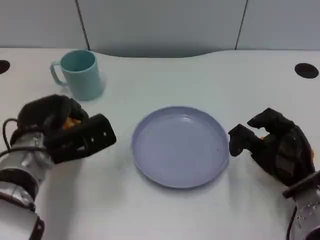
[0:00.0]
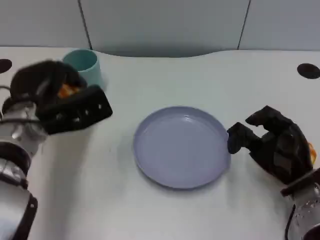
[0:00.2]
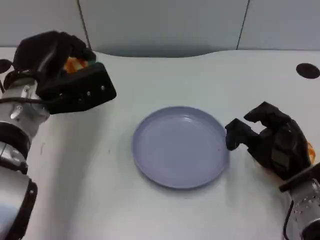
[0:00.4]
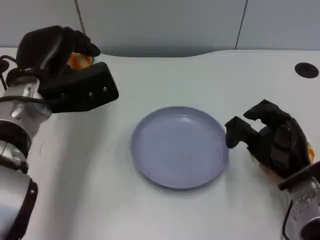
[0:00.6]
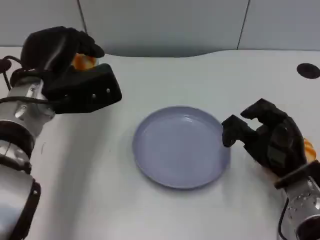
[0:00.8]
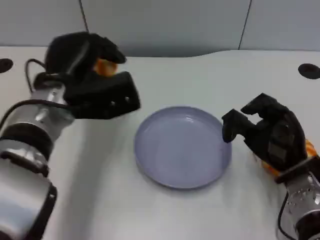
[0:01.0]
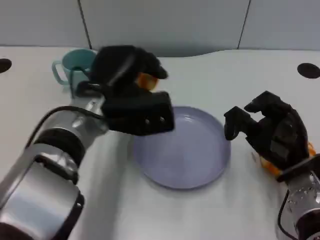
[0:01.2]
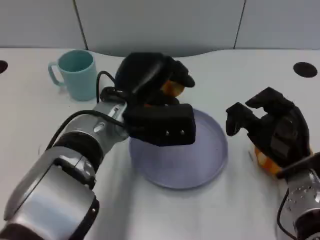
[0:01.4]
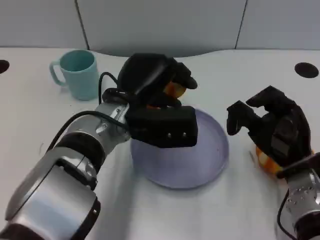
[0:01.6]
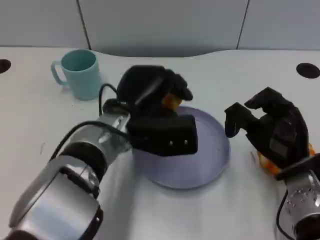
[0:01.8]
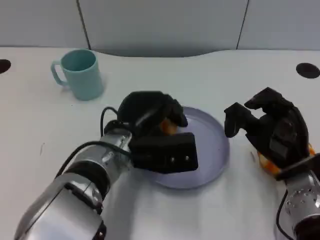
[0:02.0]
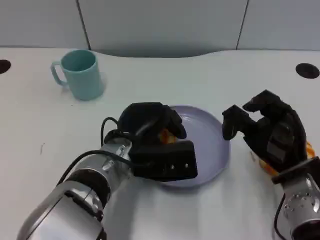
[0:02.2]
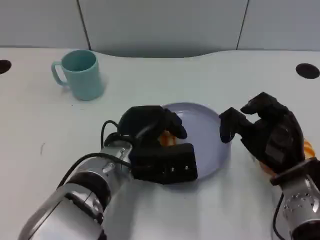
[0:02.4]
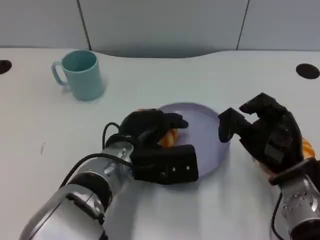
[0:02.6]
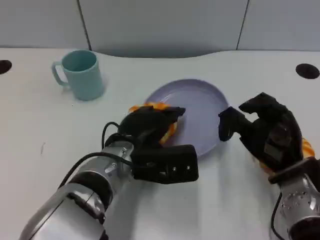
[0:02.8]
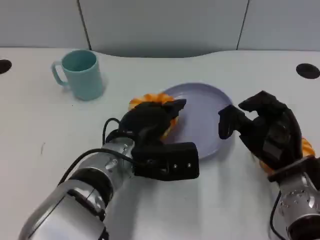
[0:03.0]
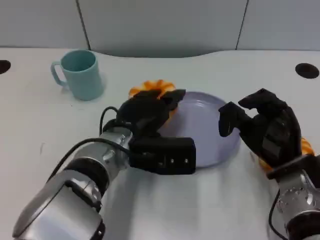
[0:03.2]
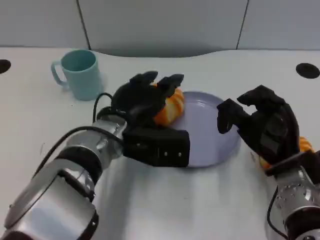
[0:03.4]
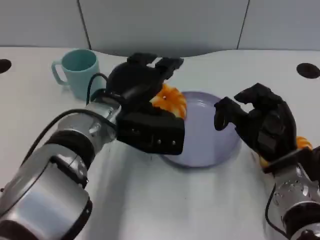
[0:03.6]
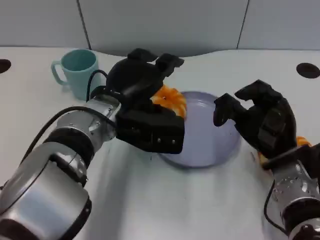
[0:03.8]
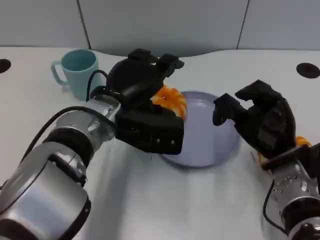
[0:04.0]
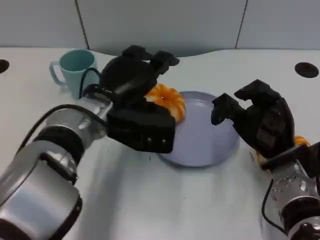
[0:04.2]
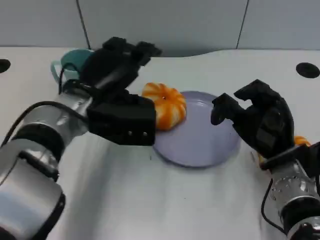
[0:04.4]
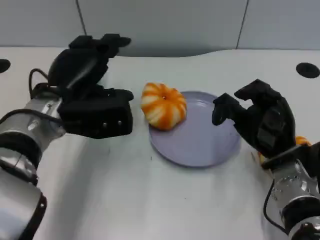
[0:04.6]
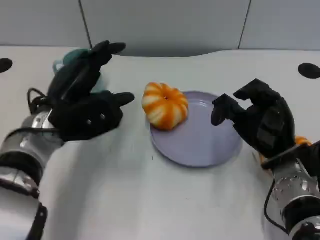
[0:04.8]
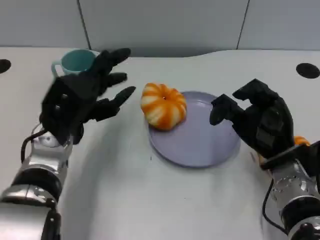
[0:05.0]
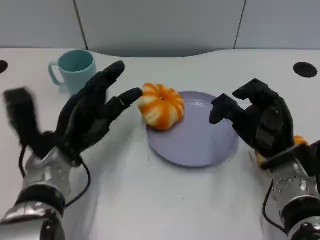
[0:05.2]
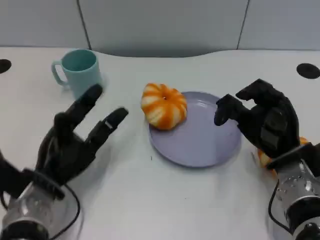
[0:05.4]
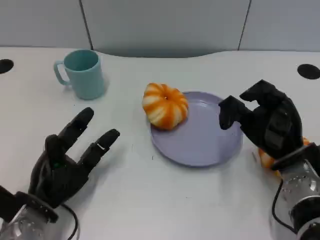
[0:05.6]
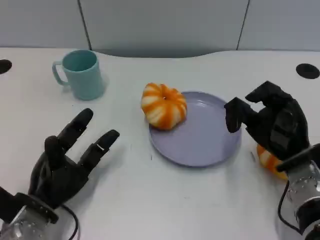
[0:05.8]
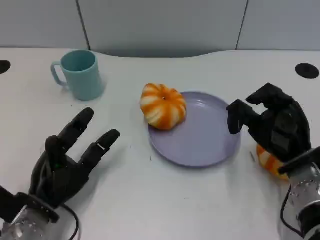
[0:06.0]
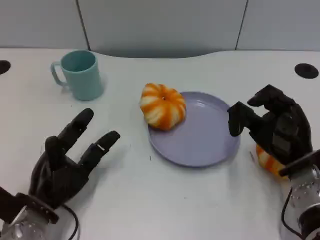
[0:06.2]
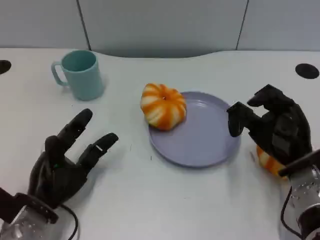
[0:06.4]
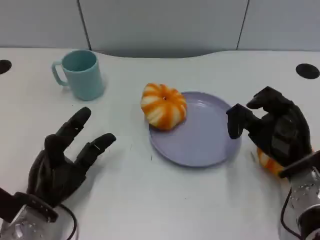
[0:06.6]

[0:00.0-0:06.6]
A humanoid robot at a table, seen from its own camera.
Task of the whole recording: Grasp the bread from the table and place it into the plate.
0:00.0 to 0:01.6: The left hand travels to the right by about 15 cm.
0:03.2 to 0:05.0: The left hand heads to the left, covering roughly 10 cm.
0:05.0 to 0:06.6: The left hand goes approximately 15 cm downward, backward and to the left.

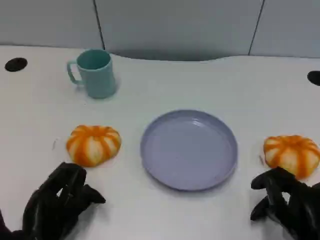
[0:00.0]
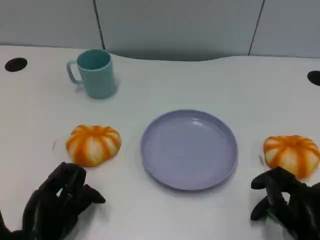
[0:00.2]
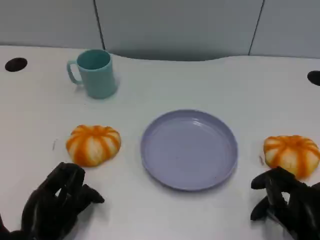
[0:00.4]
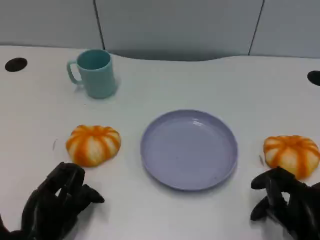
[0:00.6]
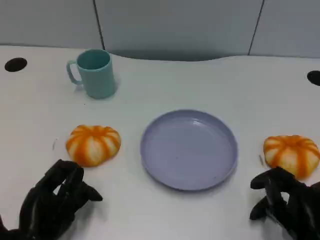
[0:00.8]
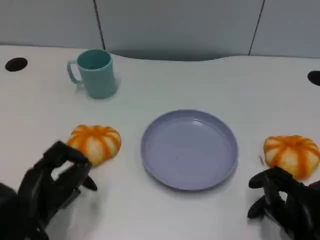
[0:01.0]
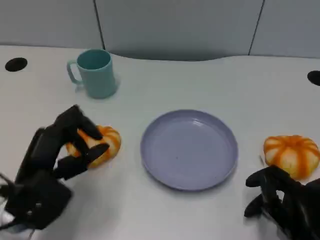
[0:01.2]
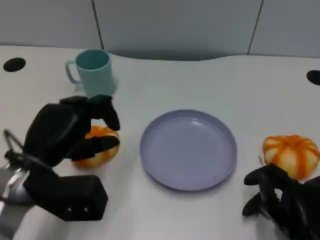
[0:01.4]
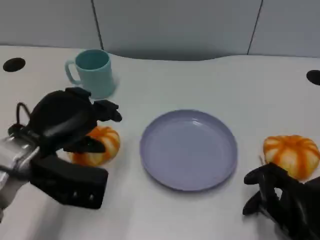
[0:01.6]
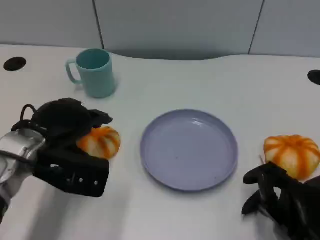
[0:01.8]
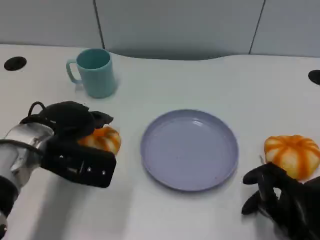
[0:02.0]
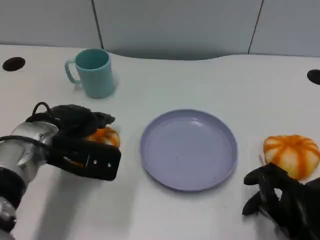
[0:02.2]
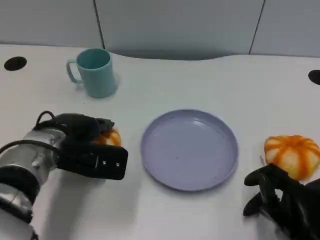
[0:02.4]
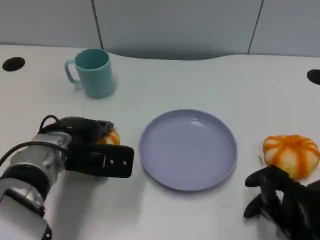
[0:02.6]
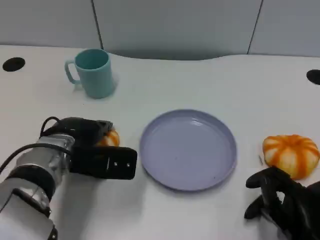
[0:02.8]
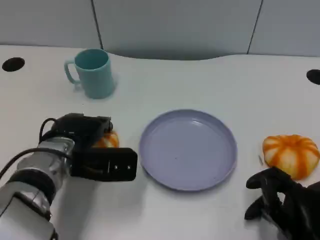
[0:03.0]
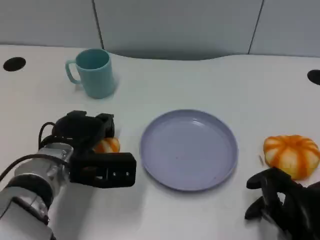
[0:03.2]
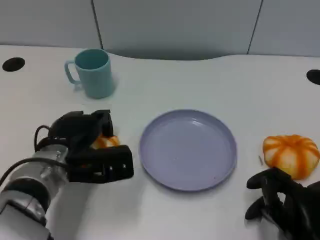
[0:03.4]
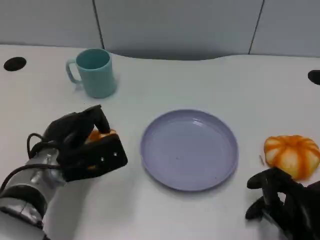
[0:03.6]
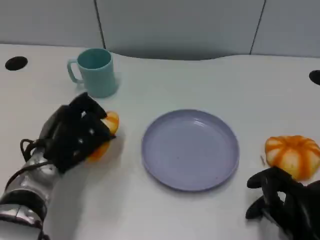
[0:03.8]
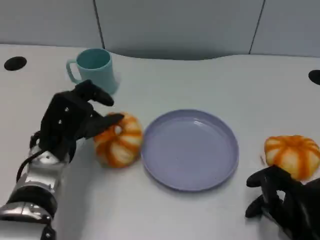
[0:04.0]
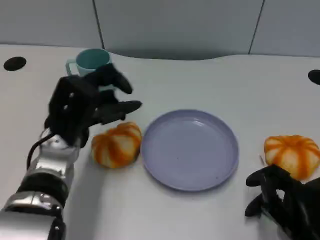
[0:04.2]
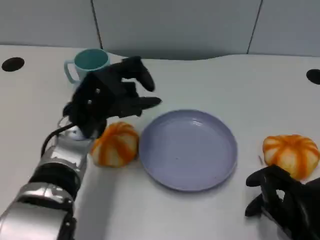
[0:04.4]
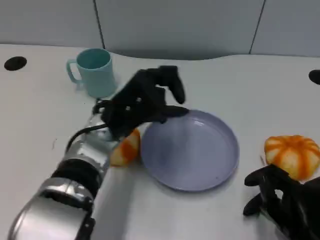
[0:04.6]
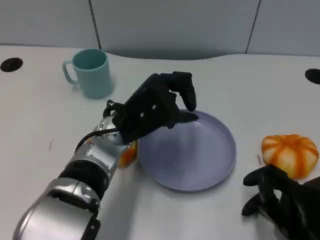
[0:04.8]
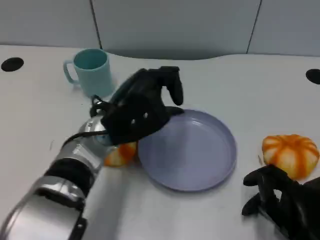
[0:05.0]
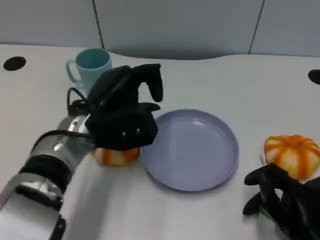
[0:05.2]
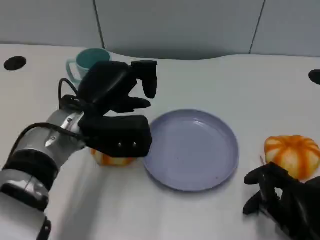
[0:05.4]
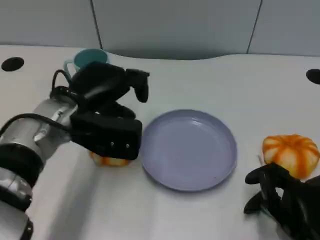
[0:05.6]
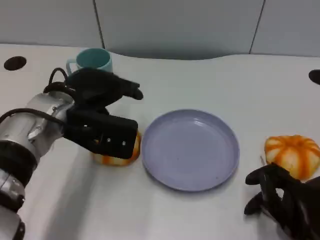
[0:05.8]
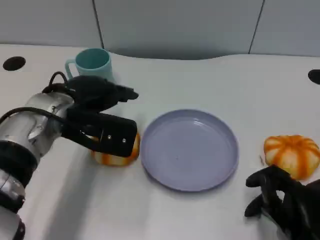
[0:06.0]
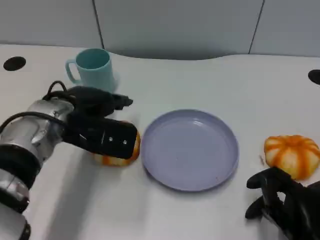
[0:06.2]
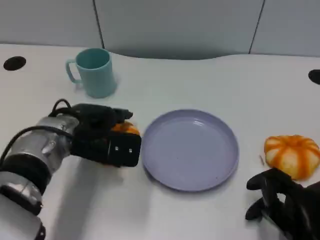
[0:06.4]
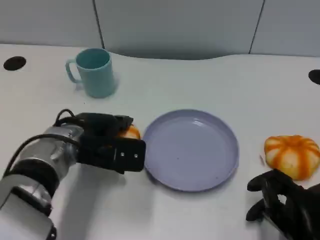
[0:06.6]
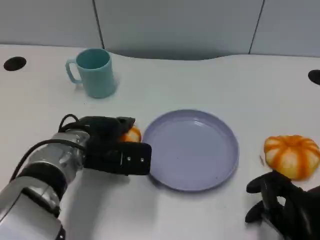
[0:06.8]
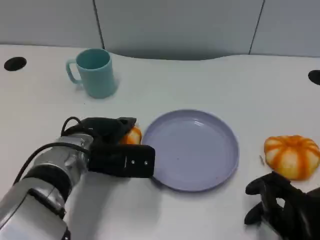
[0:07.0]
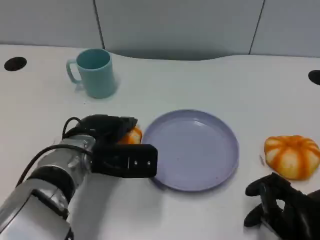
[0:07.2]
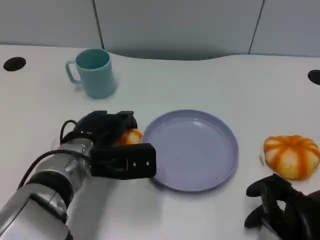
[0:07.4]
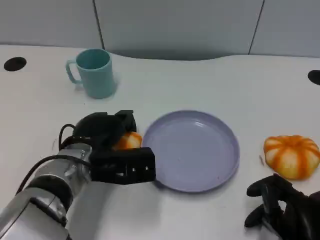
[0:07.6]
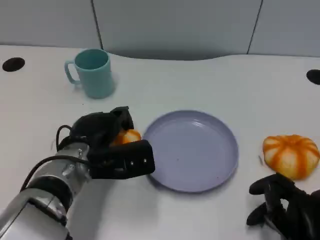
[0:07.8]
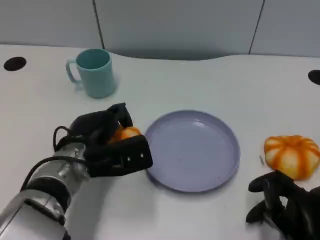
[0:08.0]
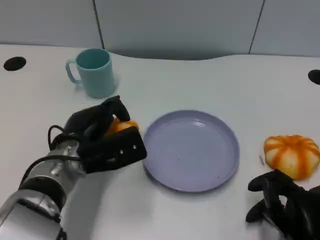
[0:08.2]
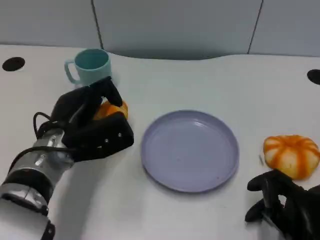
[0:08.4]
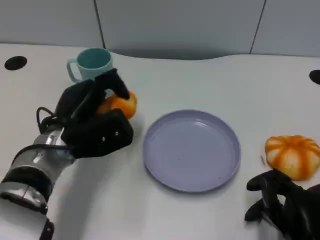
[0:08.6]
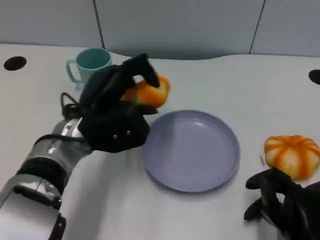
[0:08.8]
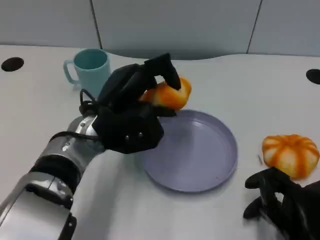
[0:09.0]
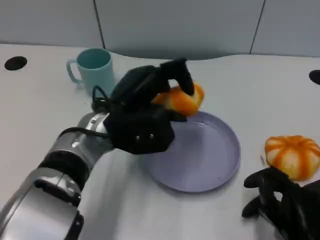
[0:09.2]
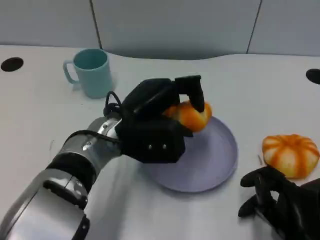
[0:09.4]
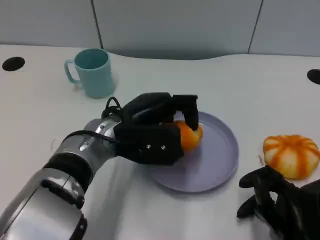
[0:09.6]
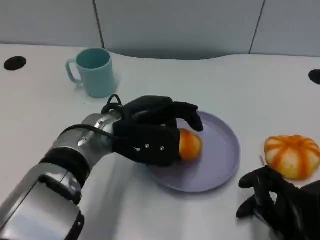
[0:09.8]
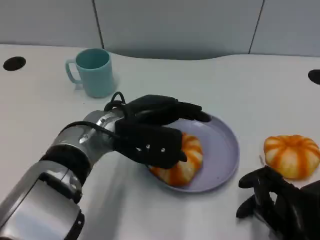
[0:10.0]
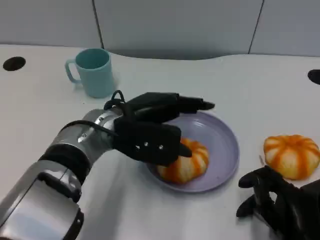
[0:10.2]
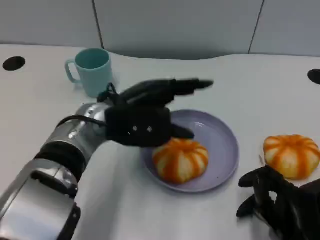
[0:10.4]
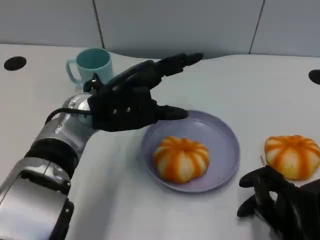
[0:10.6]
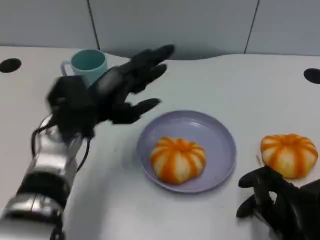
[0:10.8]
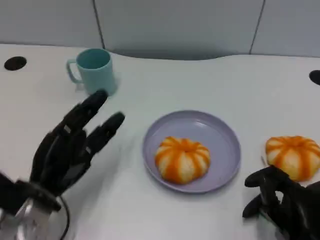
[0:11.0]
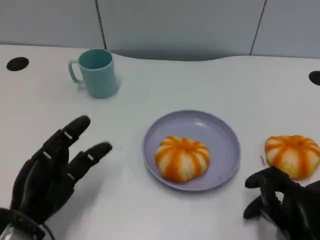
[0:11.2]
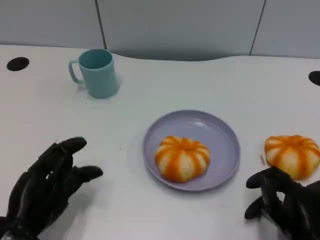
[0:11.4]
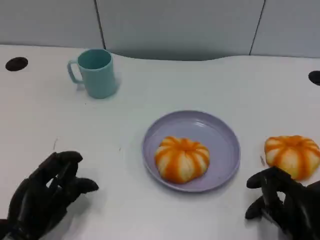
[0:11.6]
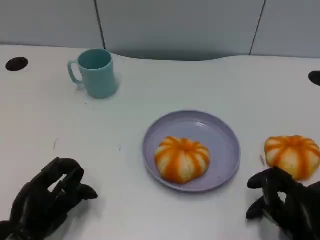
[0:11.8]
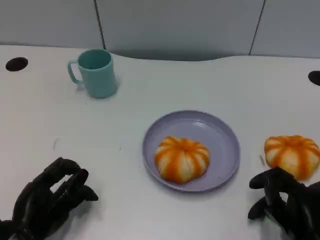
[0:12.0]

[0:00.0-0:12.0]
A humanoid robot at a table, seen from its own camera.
Task of the whole recording: Grasp the bread from the table and place it into the plate.
0:00.0 to 0:01.6: The left hand travels upward and forward by approximately 15 cm.
0:01.6 to 0:03.0: The left hand moves downward, roughly 5 cm.
0:03.0 to 0:04.4: The left hand moves approximately 5 cm.
0:04.4 to 0:06.0: The left hand shifts by roughly 5 cm.
0:06.0 to 0:07.6: The left hand moves downward, roughly 10 cm.
0:07.6 to 0:09.0: The left hand shifts approximately 5 cm upward.
0:10.4 to 0:12.0: The left hand travels backward, to the left and downward by about 20 cm.

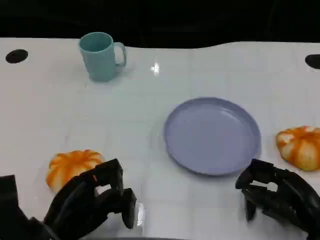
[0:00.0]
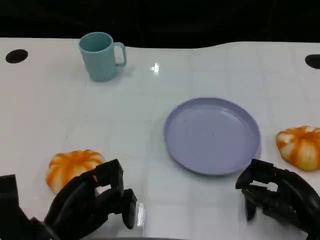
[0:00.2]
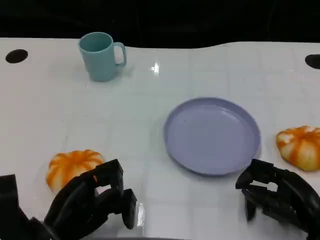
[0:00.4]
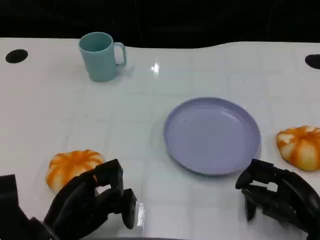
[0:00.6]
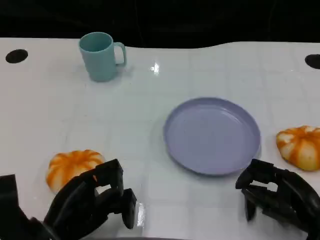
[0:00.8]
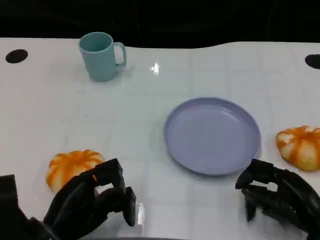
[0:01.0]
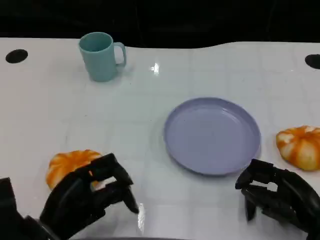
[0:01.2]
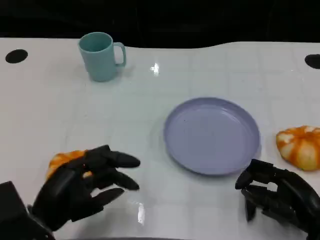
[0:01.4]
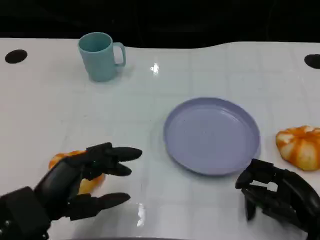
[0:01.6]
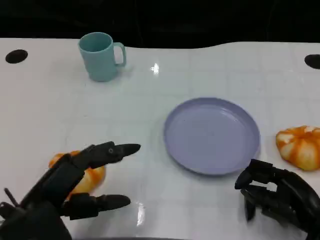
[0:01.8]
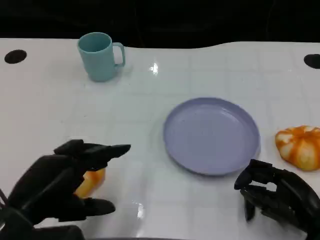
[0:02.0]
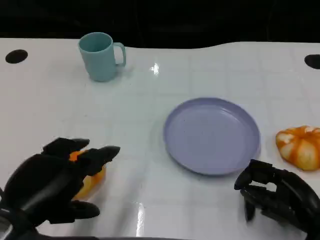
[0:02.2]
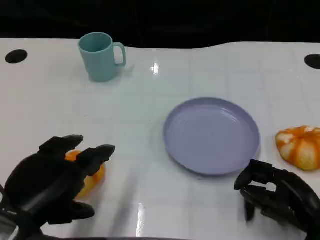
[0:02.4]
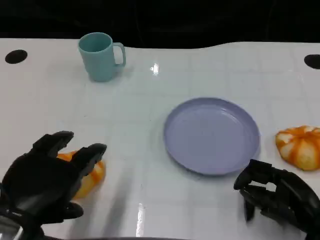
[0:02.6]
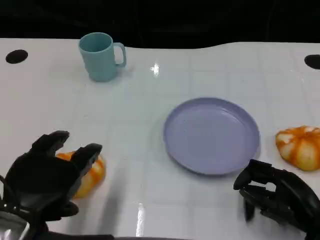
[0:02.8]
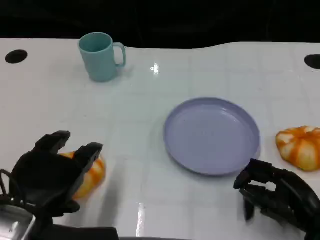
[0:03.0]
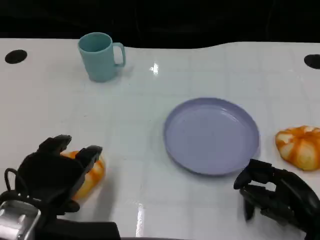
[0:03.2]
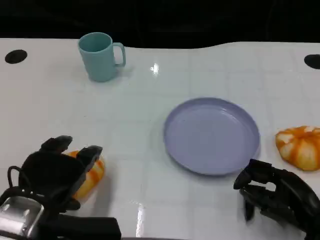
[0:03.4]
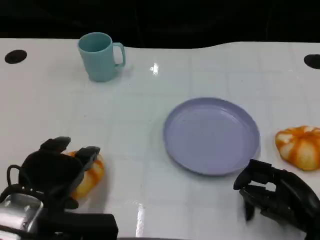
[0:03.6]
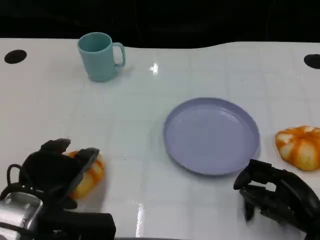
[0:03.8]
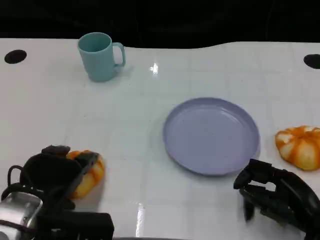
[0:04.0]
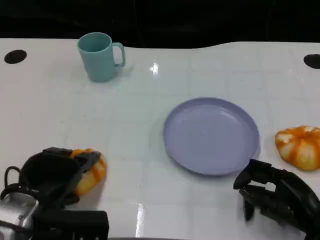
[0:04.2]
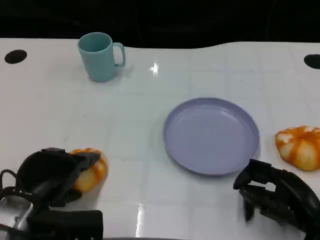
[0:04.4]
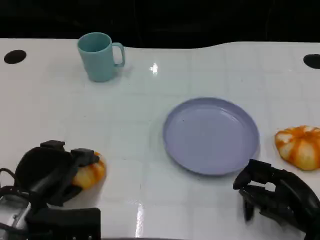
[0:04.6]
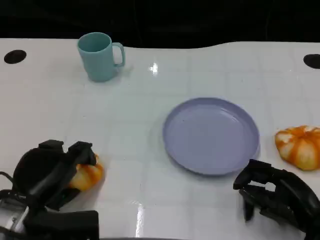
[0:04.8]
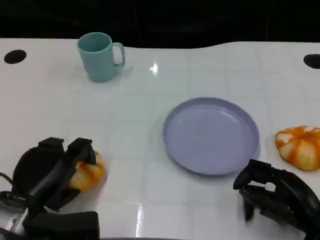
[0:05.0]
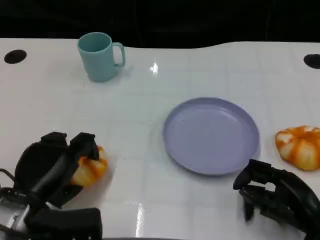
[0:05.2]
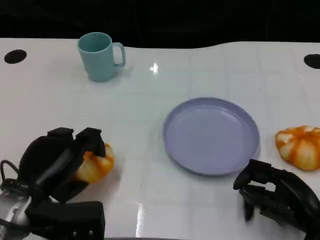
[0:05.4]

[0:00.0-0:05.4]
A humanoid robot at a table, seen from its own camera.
Task of the whole recording: Grasp the bread from the table and place it into the plate.
0:01.4 to 0:02.8: The left hand heads upward, covering approximately 5 cm.
0:02.8 to 0:04.0: The left hand shifts about 5 cm downward and forward.
